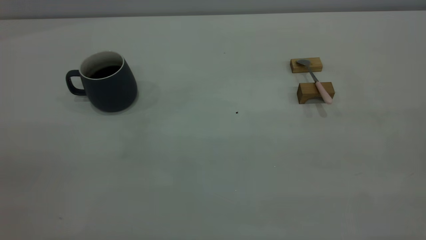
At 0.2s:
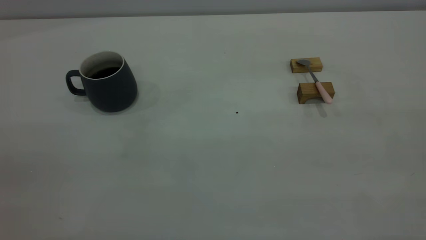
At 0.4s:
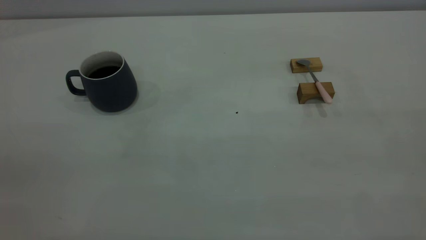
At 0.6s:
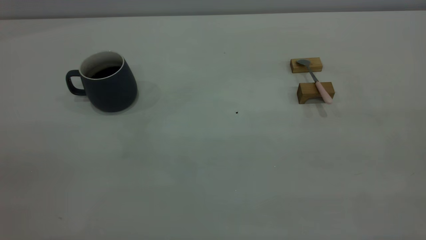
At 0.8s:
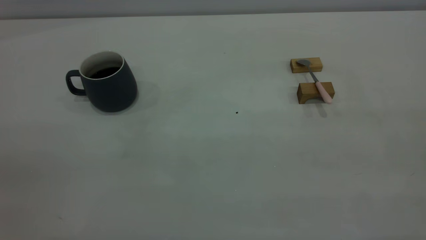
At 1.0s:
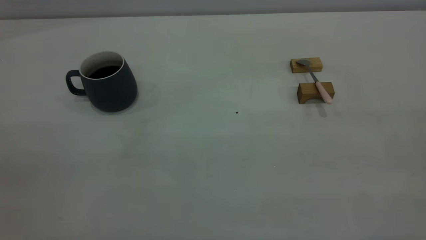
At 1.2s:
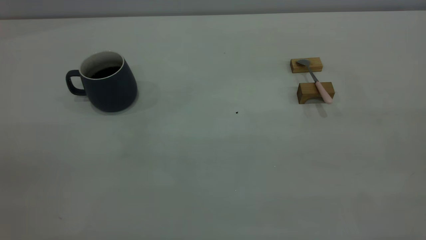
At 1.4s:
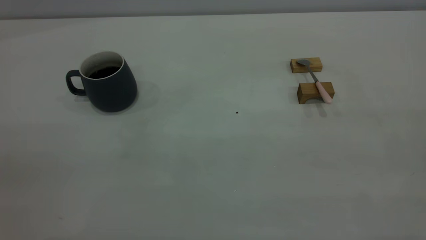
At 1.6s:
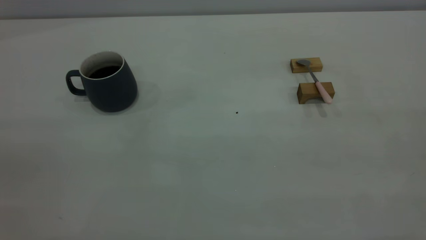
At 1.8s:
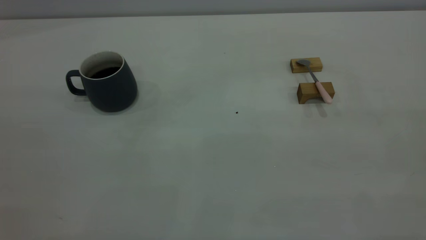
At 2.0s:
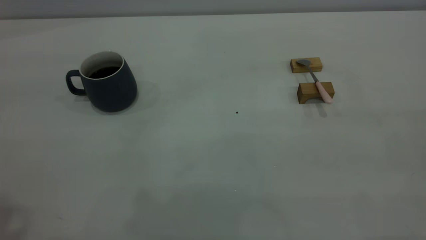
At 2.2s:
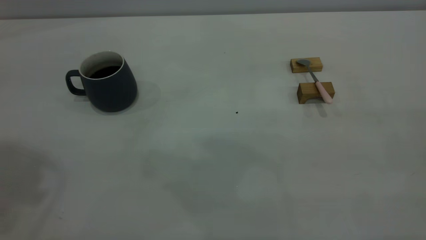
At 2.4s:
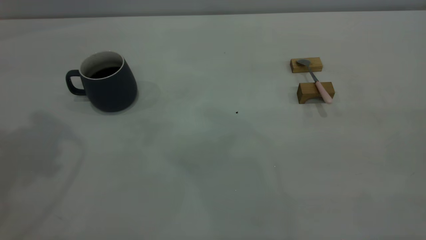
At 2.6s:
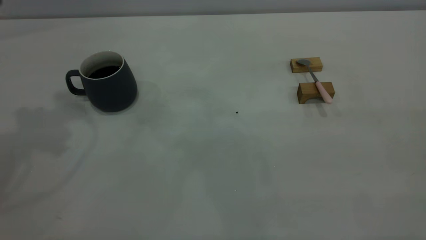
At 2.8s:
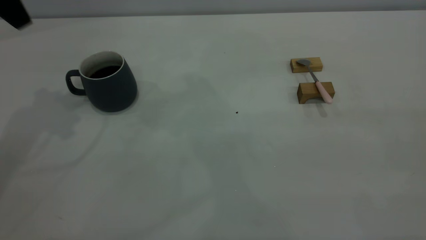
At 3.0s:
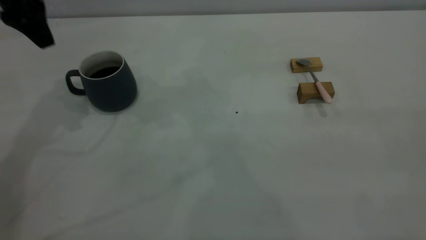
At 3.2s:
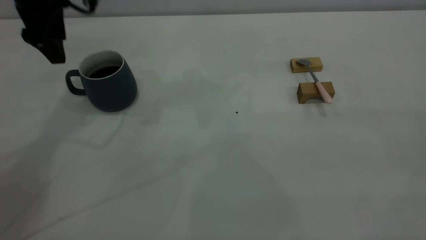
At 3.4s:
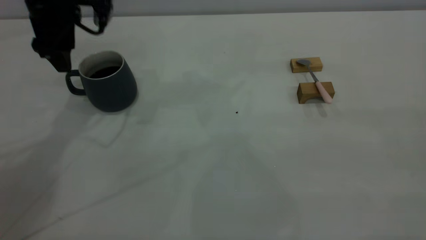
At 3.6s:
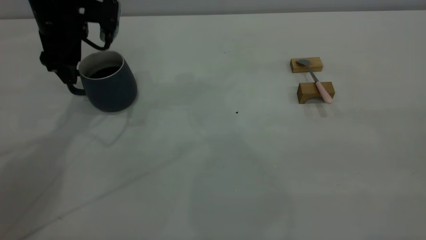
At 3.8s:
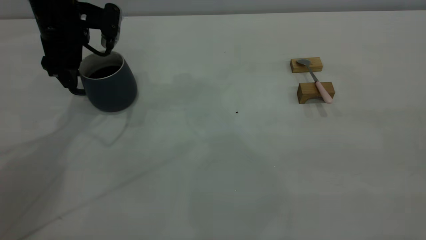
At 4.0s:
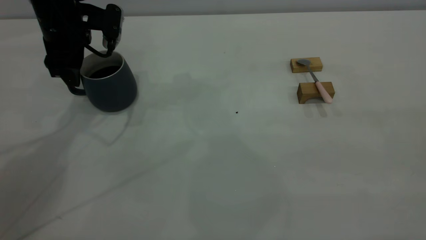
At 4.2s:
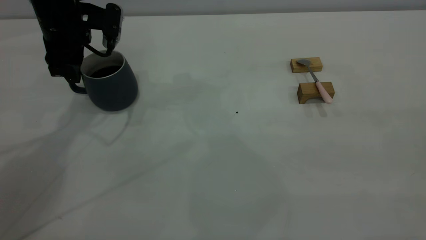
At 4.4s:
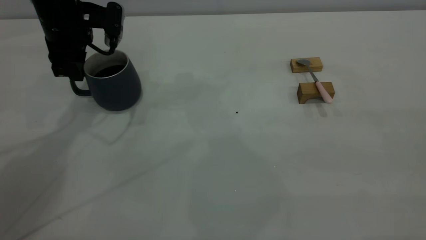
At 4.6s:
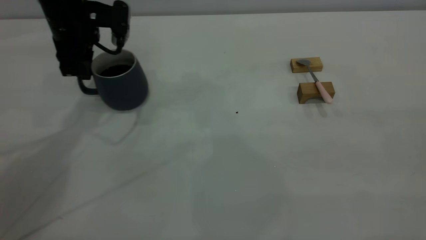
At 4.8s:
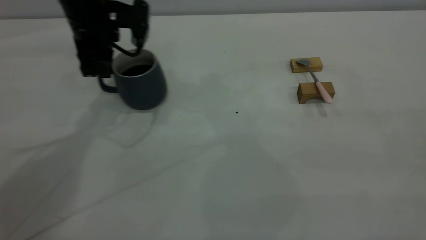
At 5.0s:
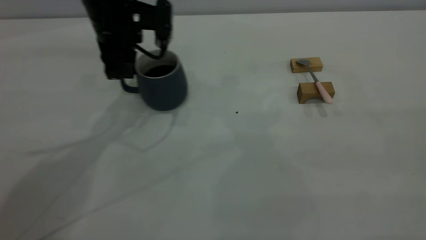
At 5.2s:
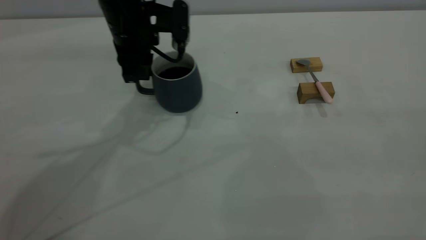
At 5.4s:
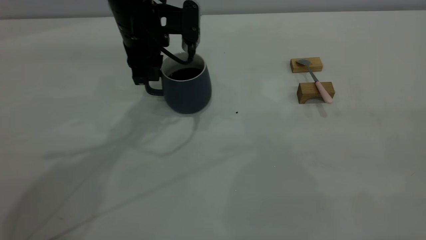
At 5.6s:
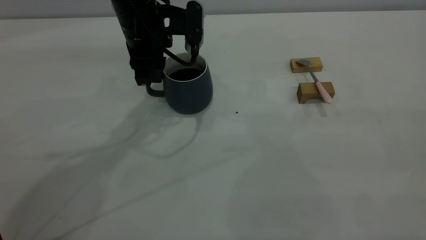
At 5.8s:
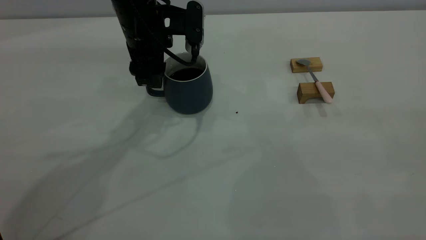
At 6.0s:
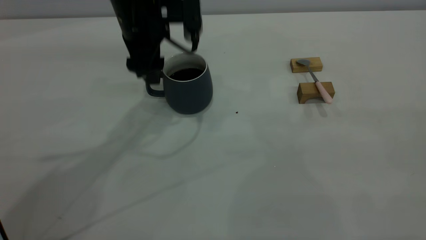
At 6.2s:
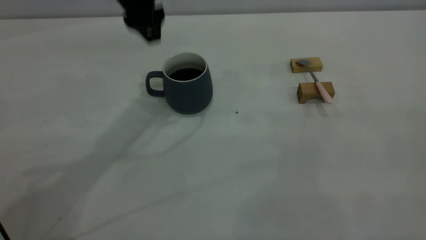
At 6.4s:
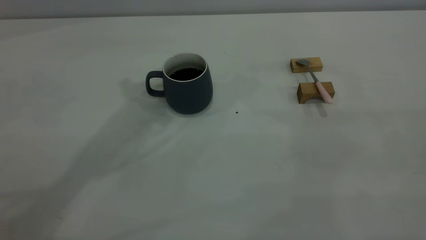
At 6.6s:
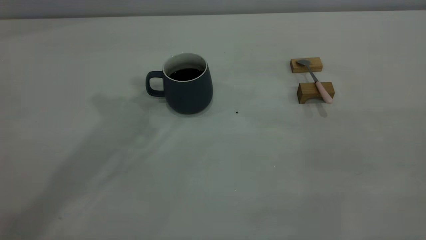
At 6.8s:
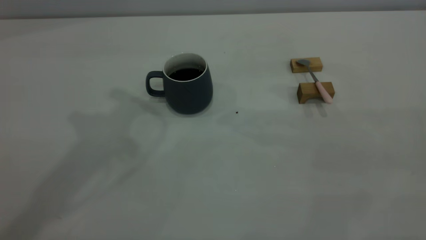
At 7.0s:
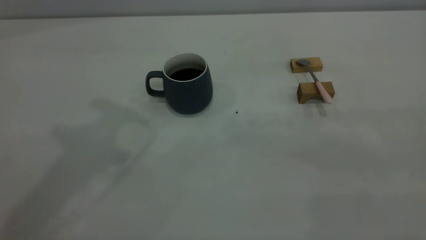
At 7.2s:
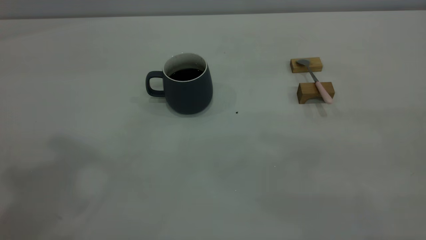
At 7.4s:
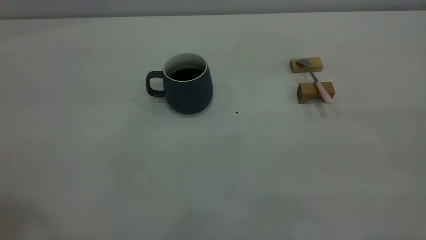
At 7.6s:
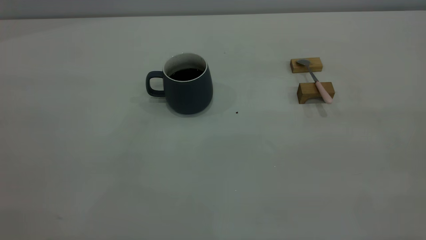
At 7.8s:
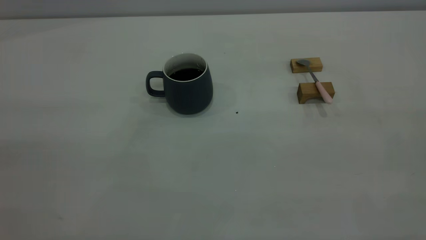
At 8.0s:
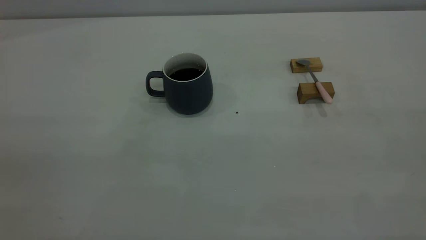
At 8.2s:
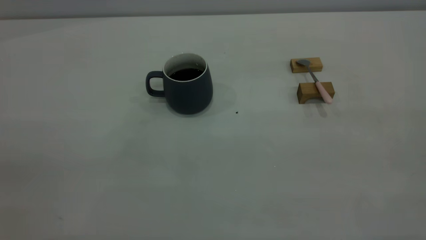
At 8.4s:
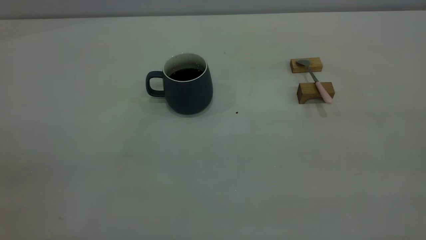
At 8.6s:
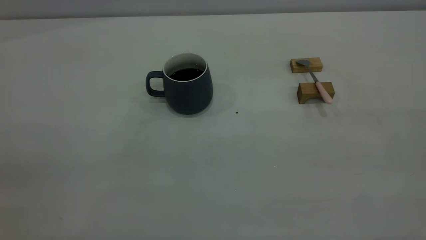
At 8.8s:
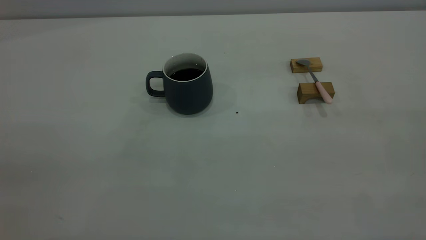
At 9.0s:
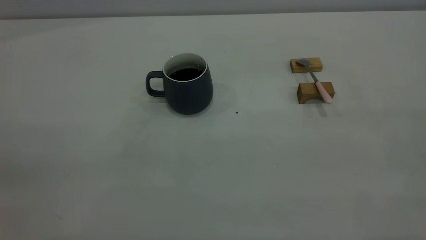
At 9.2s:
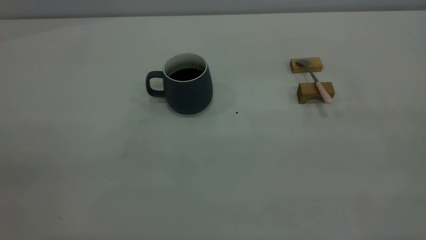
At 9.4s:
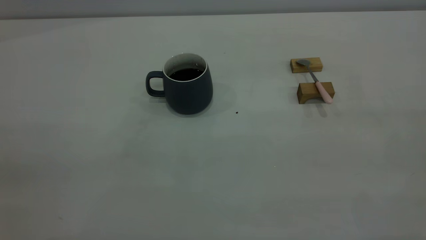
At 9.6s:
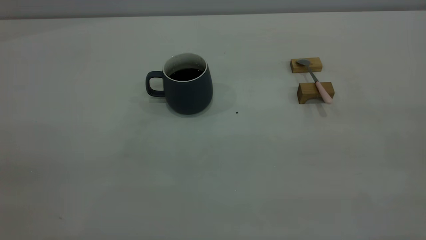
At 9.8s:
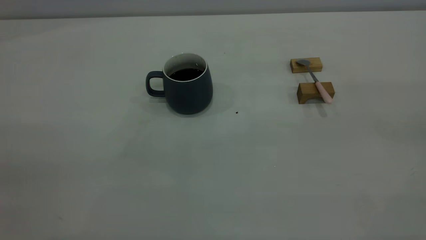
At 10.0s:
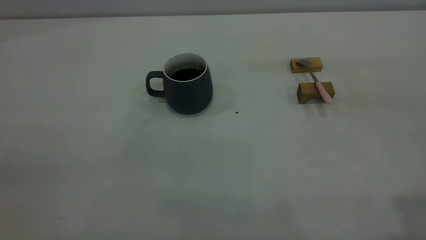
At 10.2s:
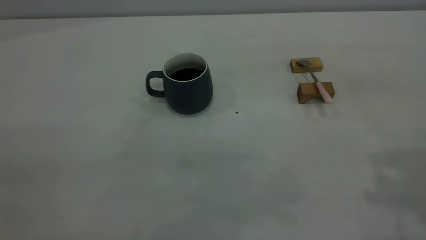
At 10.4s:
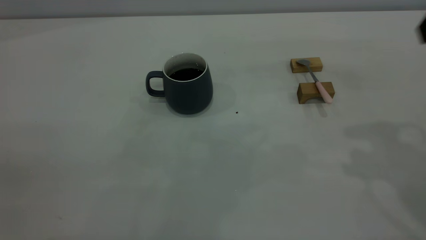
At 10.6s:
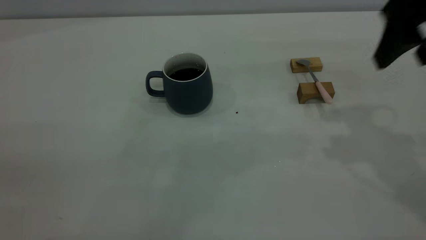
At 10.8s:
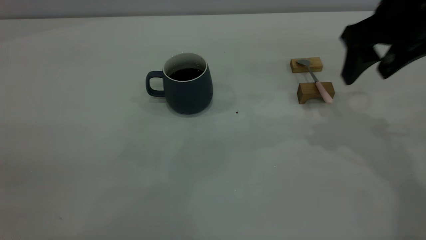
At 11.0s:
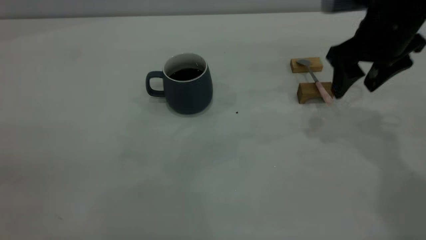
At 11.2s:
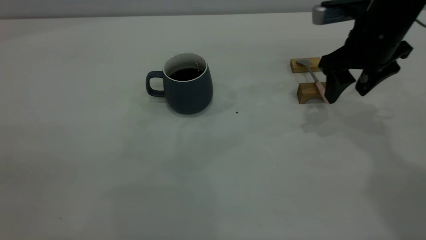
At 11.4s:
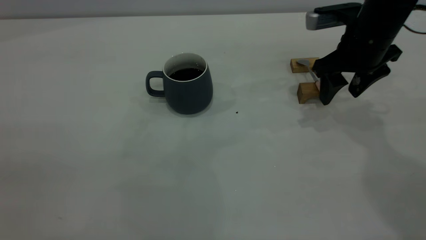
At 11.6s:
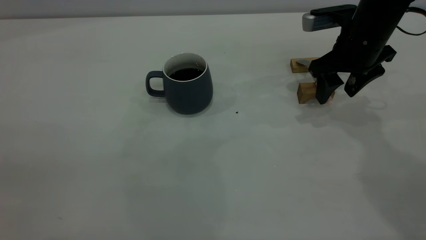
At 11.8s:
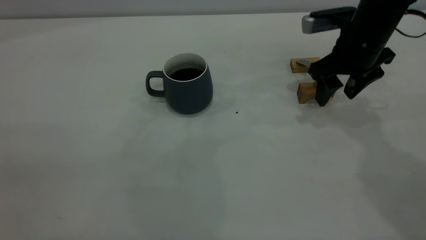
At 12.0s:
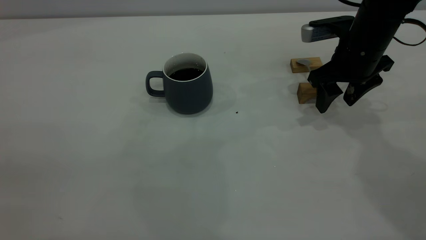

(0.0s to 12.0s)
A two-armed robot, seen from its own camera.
Step, 0.0s - 6.0s: Move the cup with coffee to the center of view.
1.6s - 3.0s: The left gripper travels forward by approximately 40 cm.
3.0s - 4.4s: The left gripper shifts approximately 10 cm downward, and closes its fingers.
4.4s - 6.0s: The left gripper shifts roughly 15 cm to the right, and opens up.
6.0s - 7.6s: The left gripper travels backward, upward and to the left by about 50 cm, and closes its fingers.
10.4s - 12.0s: The right gripper is displaced downward and forward by some 25 cm.

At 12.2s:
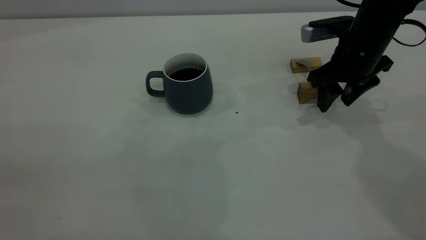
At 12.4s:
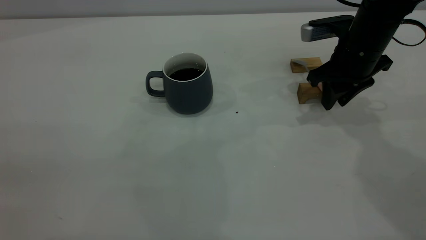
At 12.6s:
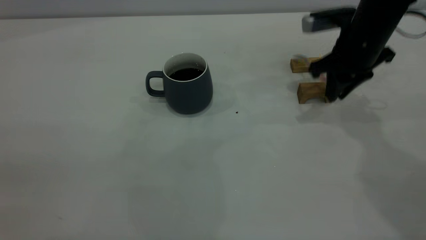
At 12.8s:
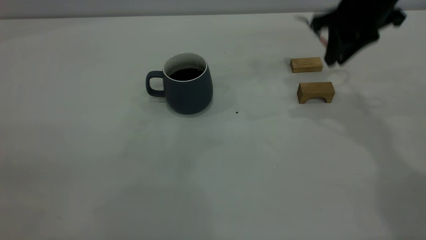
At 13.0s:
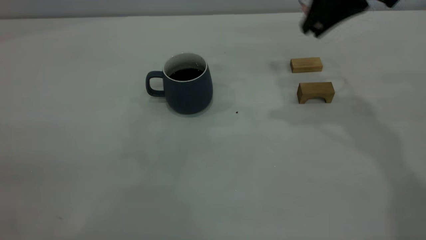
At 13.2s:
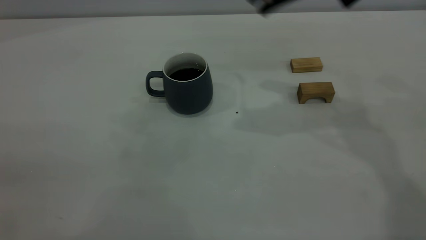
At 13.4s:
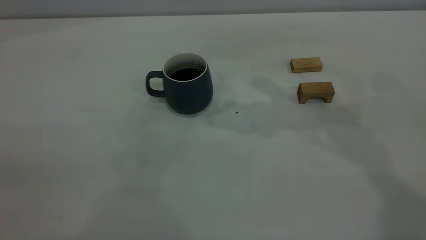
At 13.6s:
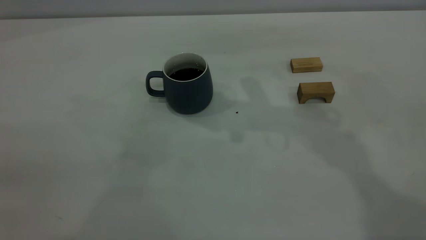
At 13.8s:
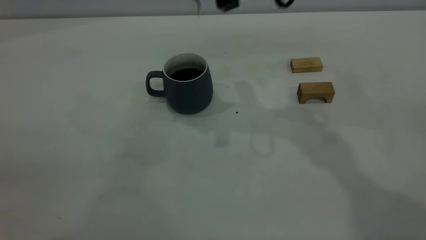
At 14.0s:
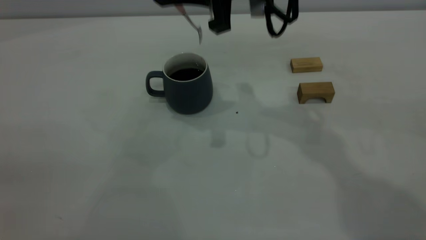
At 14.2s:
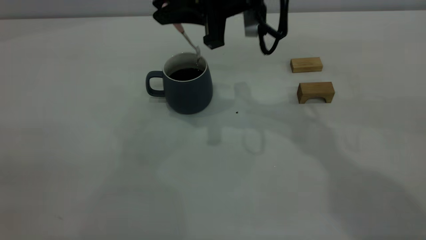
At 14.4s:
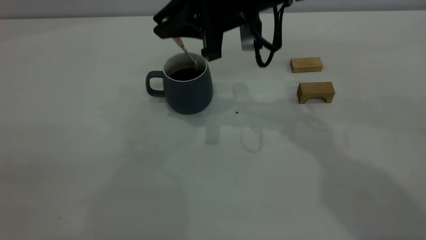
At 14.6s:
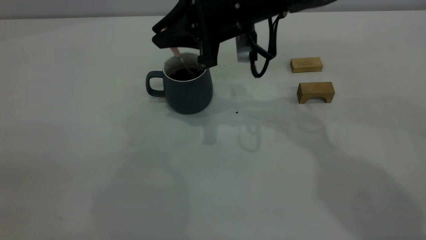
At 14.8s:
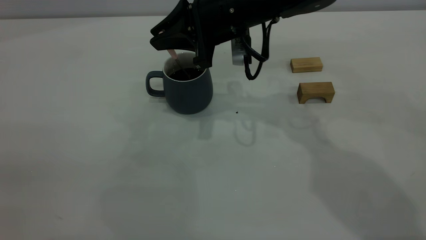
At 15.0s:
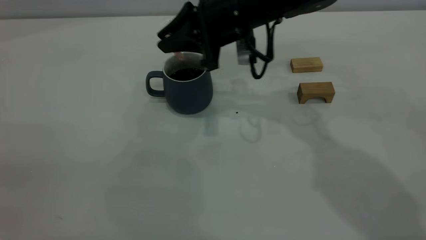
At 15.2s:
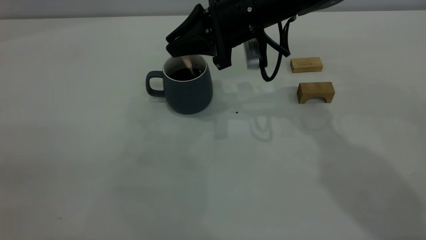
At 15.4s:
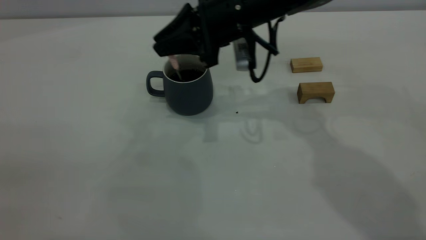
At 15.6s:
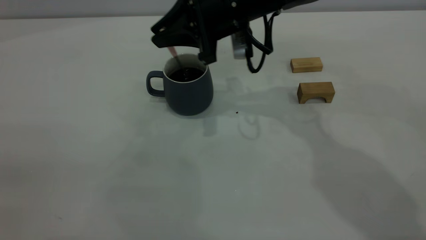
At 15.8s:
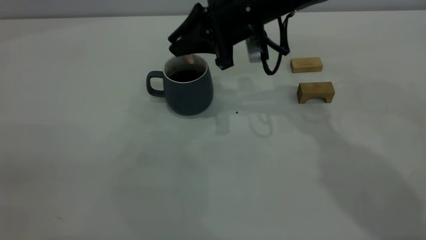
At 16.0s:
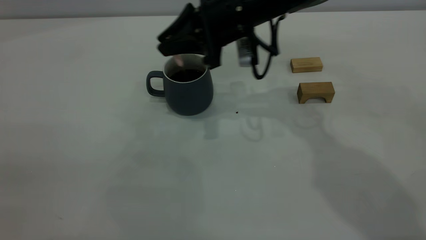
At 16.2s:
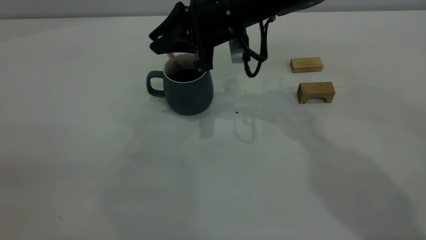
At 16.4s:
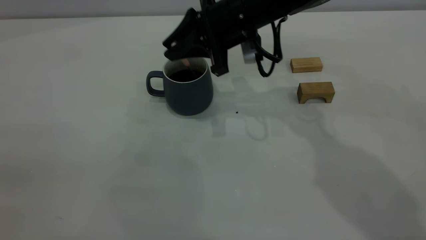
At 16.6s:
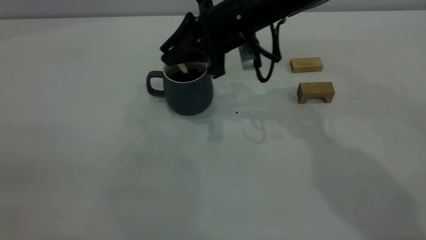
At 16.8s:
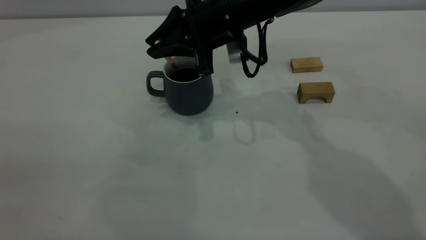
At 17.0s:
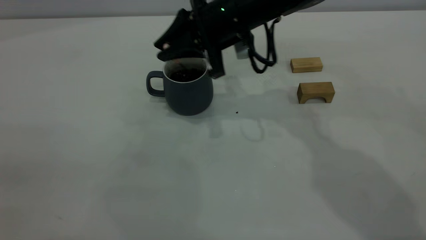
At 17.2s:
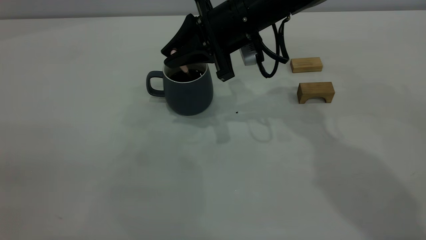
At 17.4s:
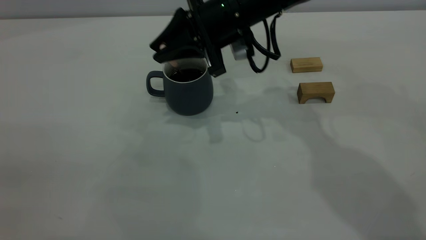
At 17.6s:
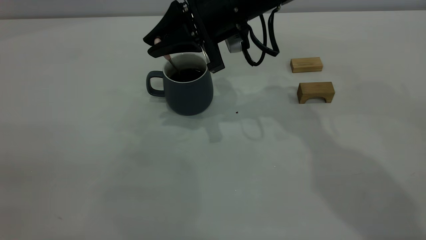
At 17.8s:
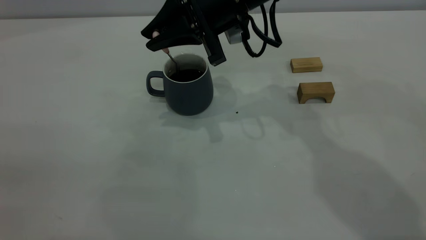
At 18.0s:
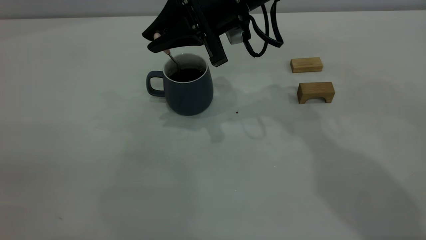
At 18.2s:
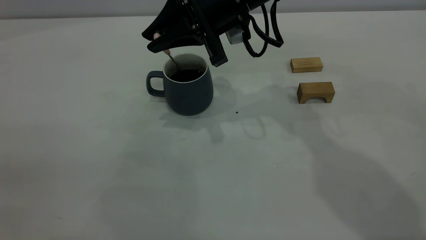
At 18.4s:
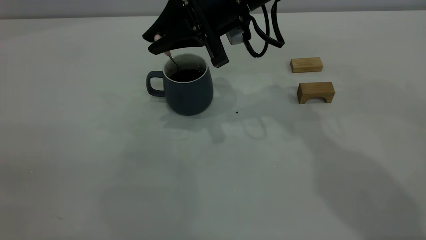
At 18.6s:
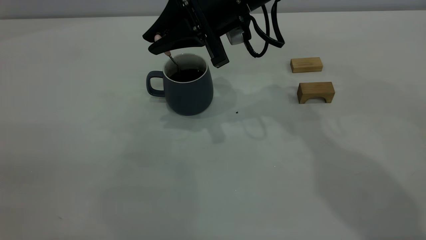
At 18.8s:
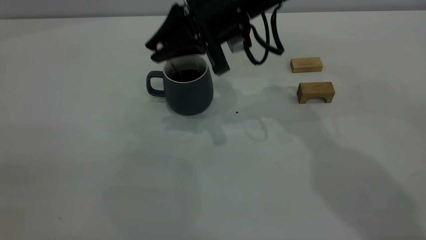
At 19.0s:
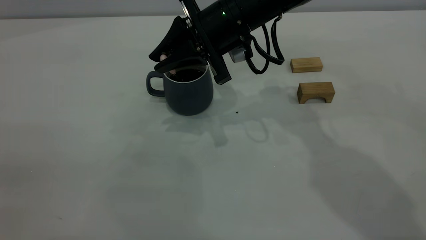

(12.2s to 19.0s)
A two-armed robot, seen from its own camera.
12.2s - 13.6s: The right gripper moves upward and to the left, about 25 cm, and closes.
13.6s - 15.0s: The right gripper goes approximately 15 cm downward.
15.0s - 16.2s: The grippers make only small movements.
16.2s - 17.6s: The grippers move only a little.
17.6s - 19.0s: There are only small adjustments of the grippers.
